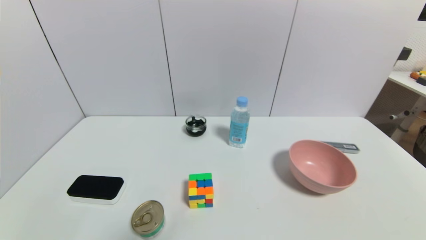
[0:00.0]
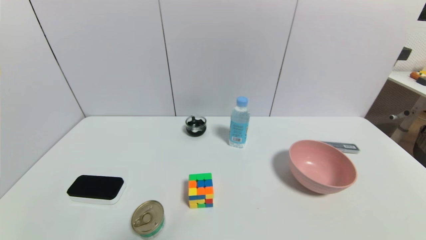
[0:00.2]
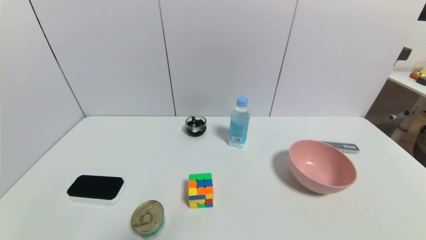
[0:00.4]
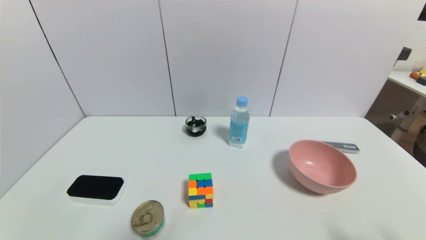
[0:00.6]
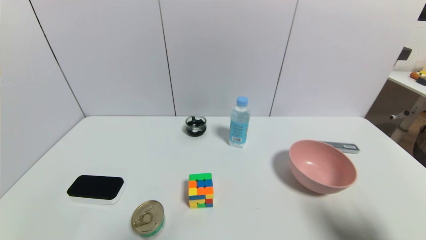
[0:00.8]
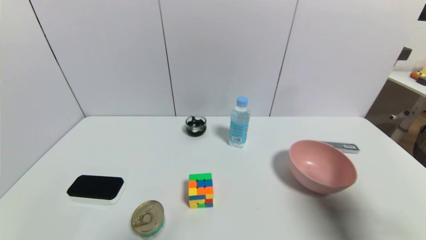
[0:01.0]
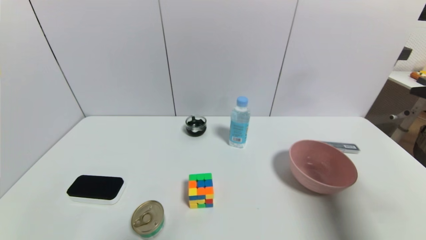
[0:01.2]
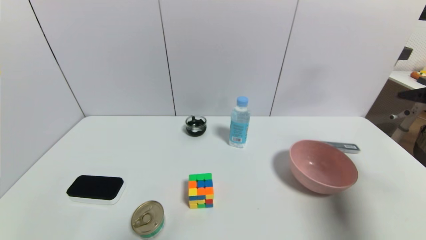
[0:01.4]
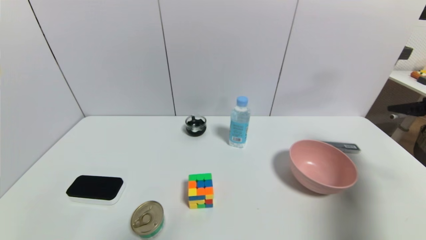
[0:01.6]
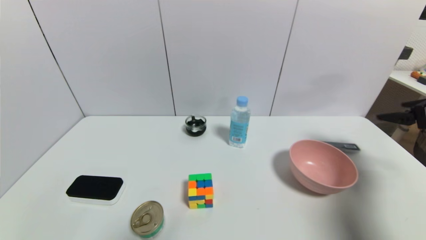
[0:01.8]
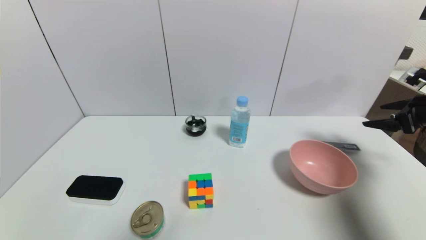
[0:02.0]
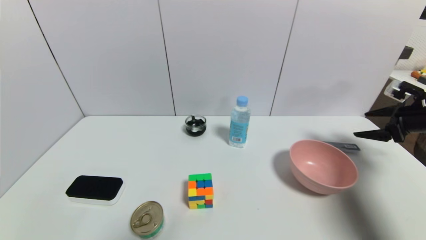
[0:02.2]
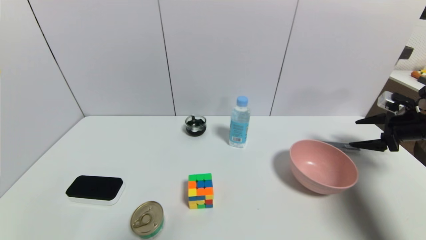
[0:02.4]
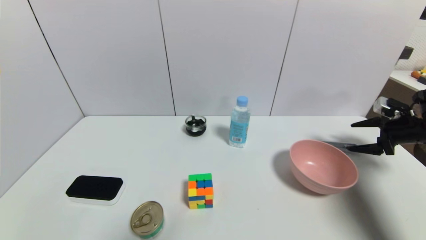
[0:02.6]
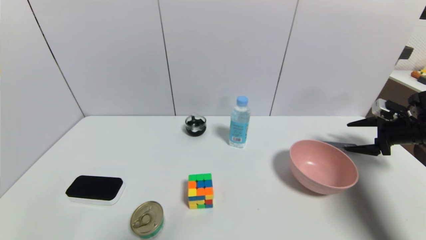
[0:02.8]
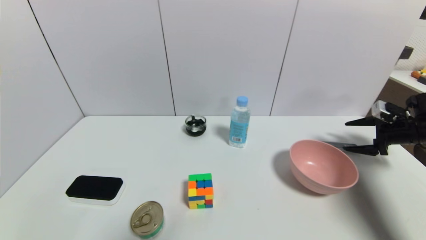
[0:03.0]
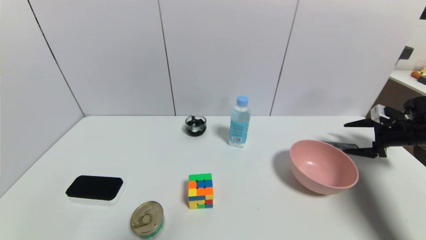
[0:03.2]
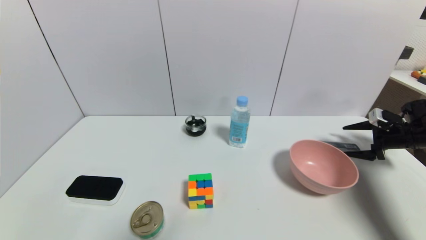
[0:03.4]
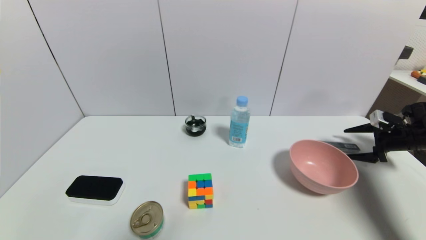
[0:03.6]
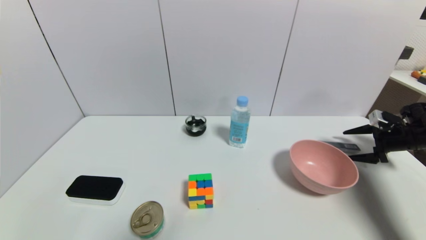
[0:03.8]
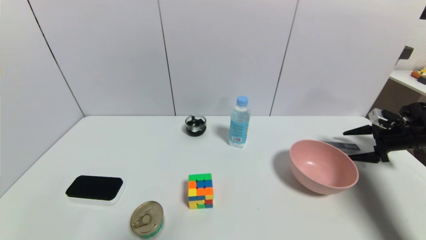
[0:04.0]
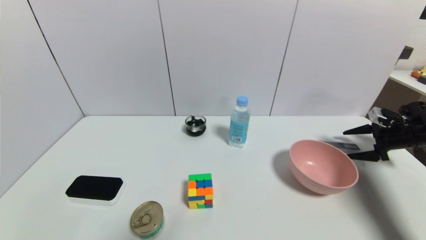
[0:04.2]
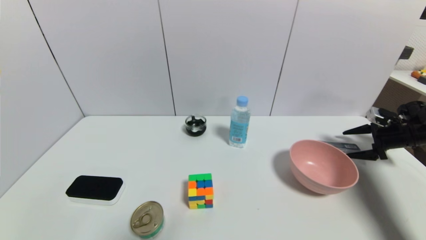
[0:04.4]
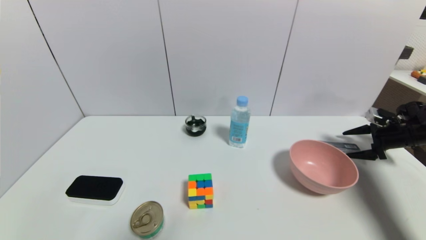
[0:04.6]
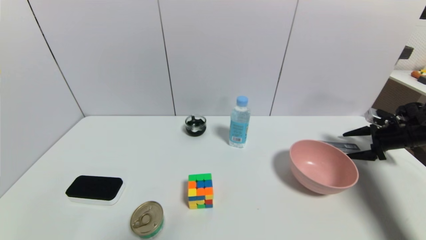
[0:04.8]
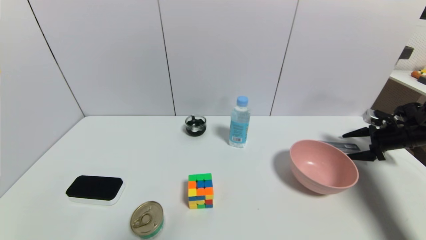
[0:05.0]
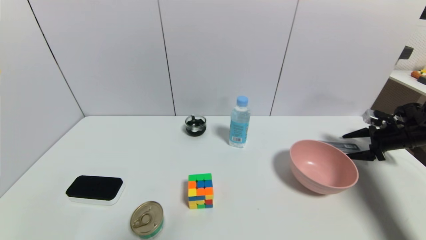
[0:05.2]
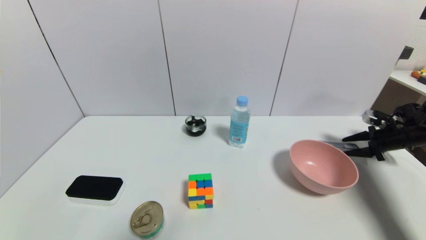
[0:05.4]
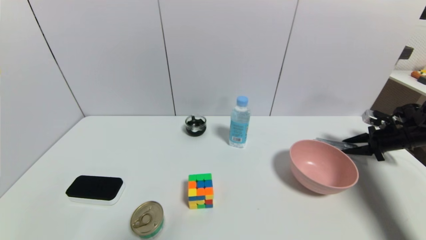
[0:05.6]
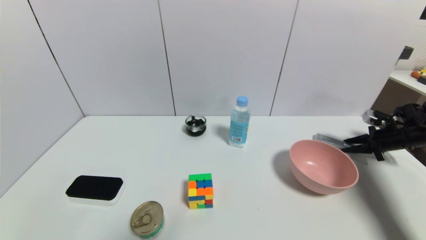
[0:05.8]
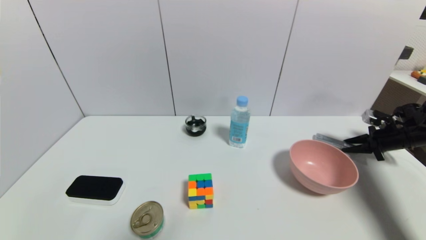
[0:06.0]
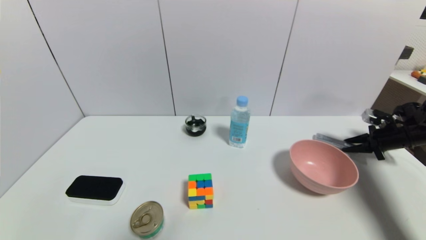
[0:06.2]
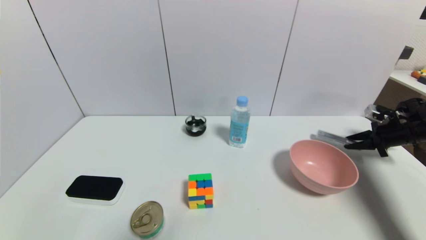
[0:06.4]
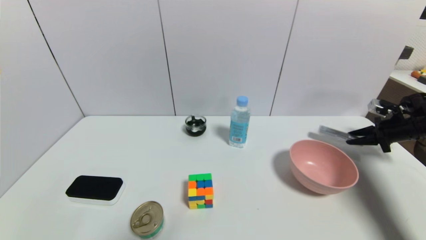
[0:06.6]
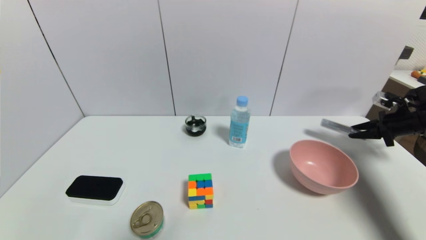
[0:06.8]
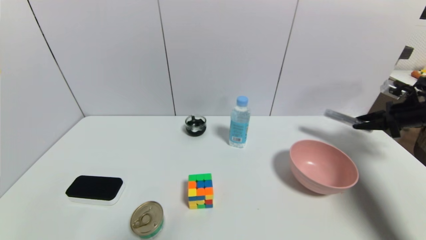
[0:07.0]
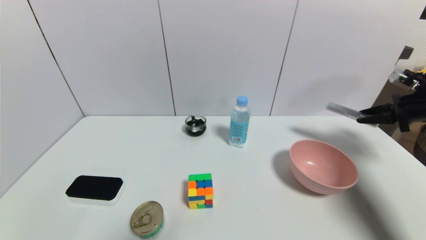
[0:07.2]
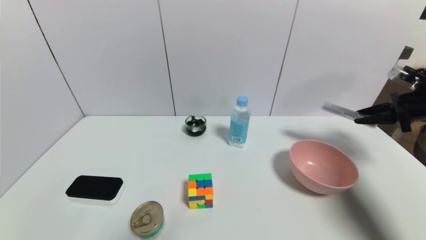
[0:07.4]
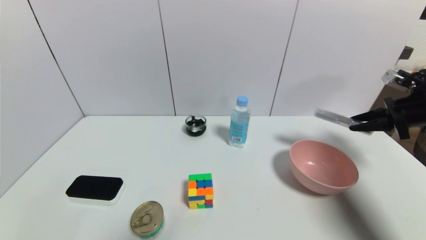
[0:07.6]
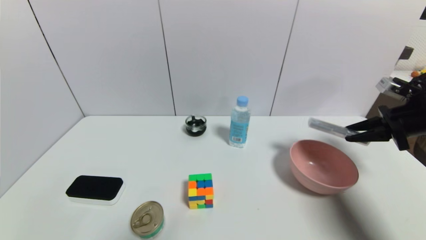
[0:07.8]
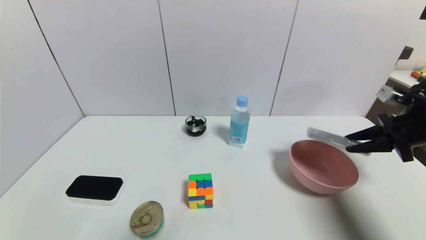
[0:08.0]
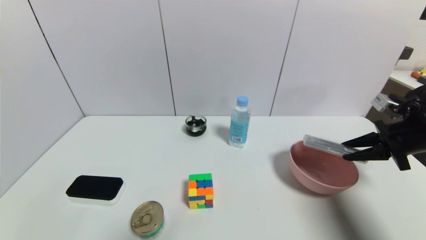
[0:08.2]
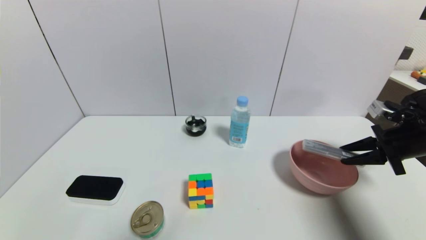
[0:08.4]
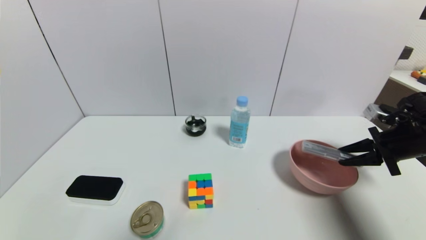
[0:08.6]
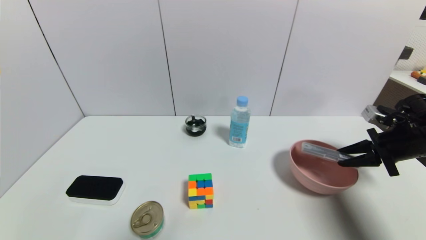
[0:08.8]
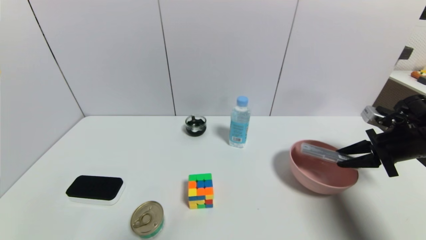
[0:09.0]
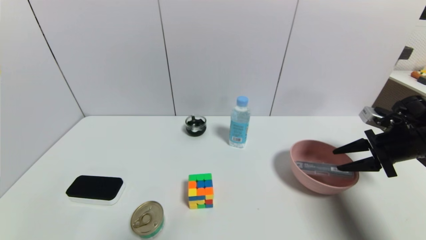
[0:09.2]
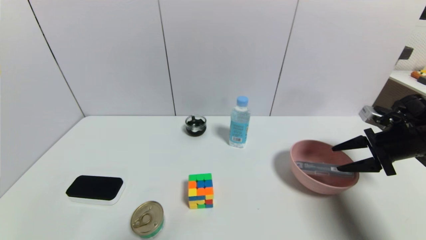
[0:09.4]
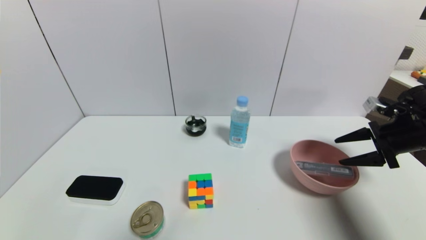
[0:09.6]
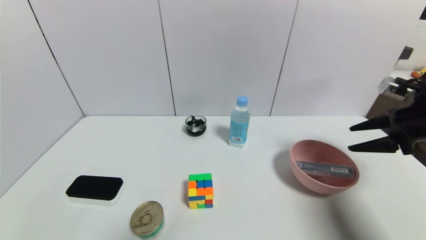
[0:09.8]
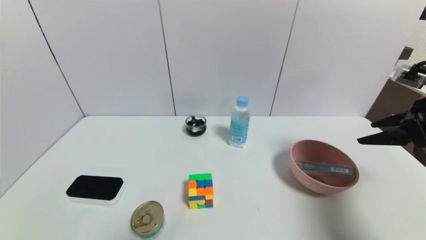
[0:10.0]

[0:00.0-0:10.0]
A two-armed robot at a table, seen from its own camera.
Task of the whole recording: use a gripper to pick the target object and place on the pink bowl.
Step, 0:00.0 to 0:05.8: Grasp the compasses with the right gripper.
Step, 0:06.0 to 0:09.2: Place the compasses on the pink bowl with the right gripper.
0:00.0 to 0:01.4: The right gripper moves forward and upward, about 30 cm.
0:01.4 to 0:02.8: The right gripper is displaced downward, forward and to the right by some 20 cm.
0:02.8 to 0:04.2: The grippers stay close to where they were, moving slightly.
0:04.2 to 0:05.8: The right gripper closes up.
0:05.8 to 0:07.2: The right gripper goes some 10 cm upward.
0:07.2 to 0:08.6: The right gripper heads to the left and backward, covering approximately 10 cm.
0:08.6 to 0:10.0: The right gripper travels upward and backward by approximately 10 cm, and opens its fingers.

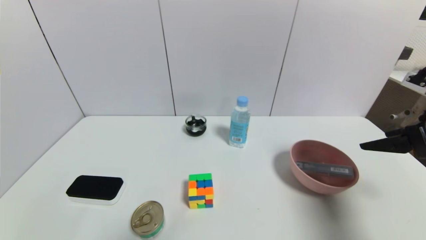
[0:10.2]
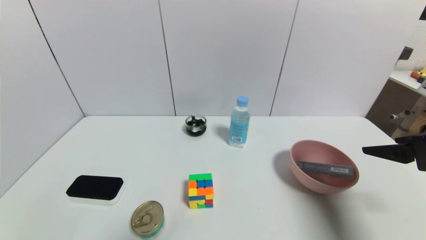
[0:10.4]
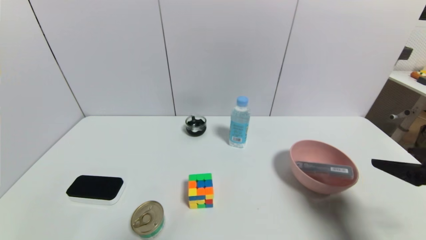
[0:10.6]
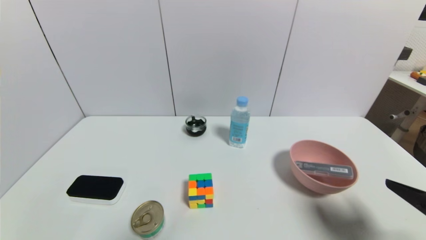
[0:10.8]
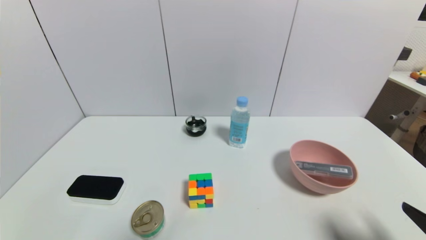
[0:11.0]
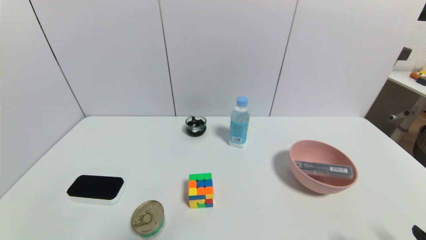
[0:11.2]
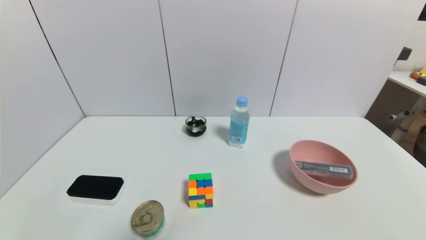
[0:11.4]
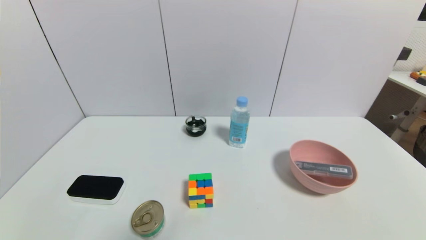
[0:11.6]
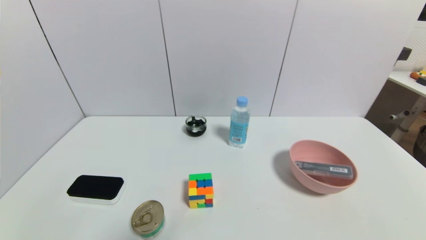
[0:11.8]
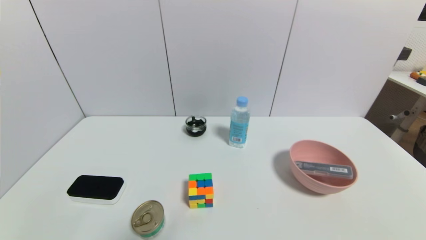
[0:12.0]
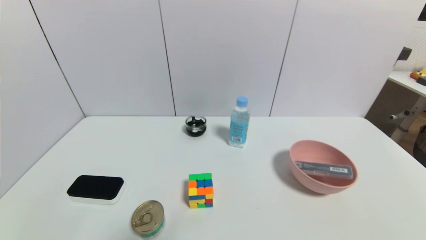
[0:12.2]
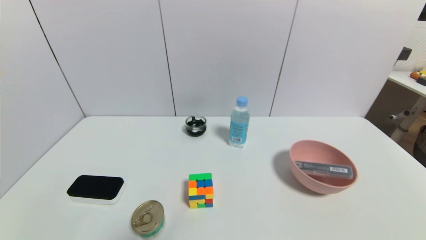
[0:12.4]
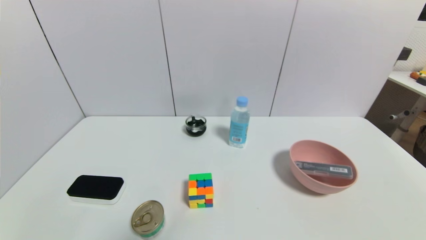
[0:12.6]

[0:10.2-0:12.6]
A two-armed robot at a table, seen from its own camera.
Task of the whole recording: use a gripper to pick the target object and place on the pink bowl.
0:10.2 to 0:11.4: The right gripper moves backward and downward, roughly 25 cm.

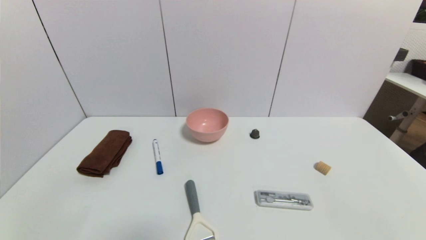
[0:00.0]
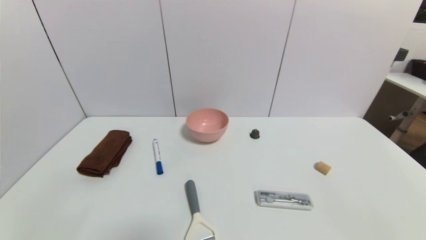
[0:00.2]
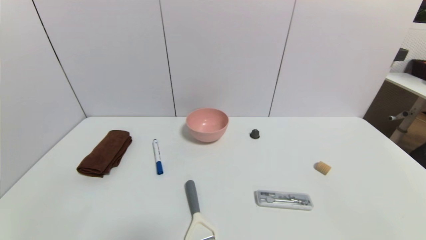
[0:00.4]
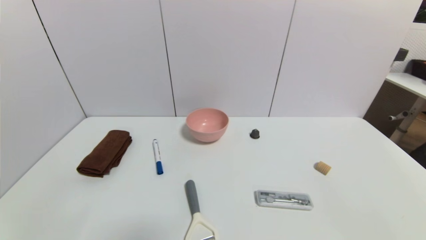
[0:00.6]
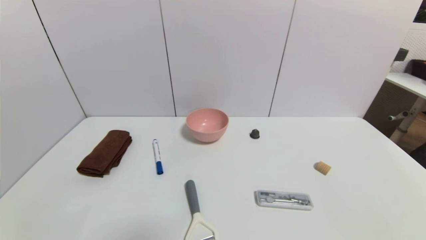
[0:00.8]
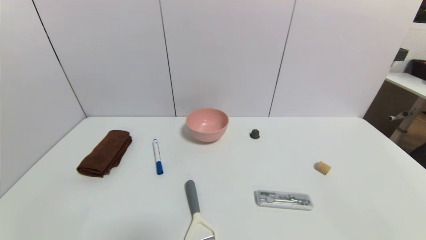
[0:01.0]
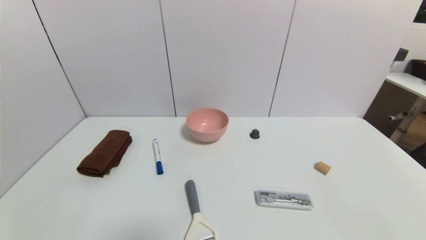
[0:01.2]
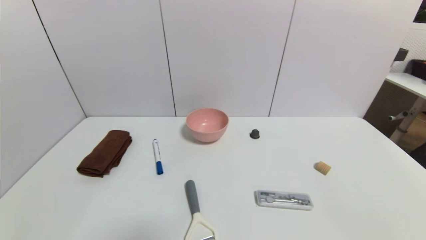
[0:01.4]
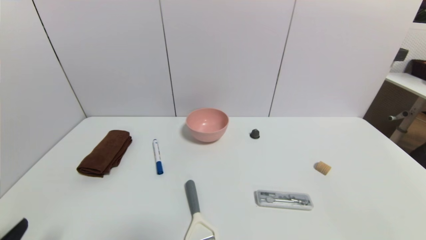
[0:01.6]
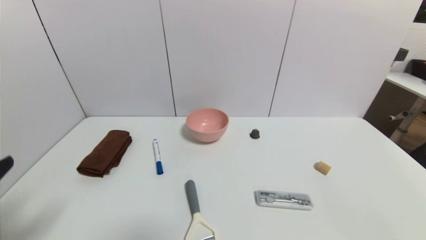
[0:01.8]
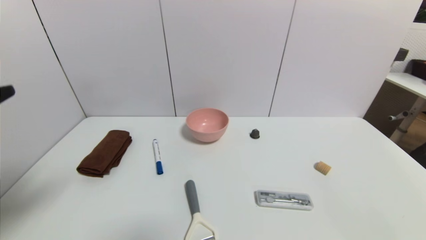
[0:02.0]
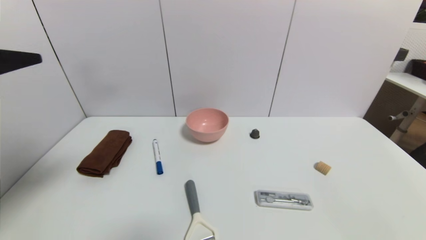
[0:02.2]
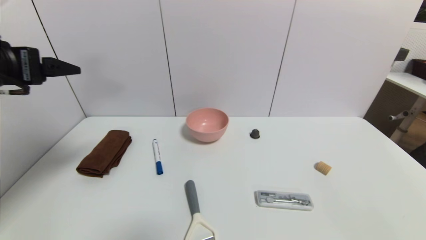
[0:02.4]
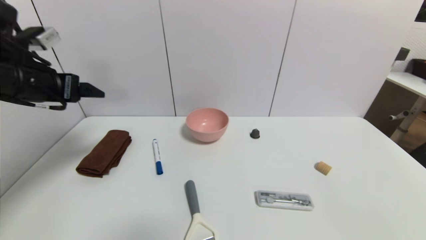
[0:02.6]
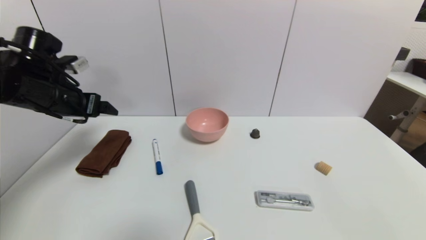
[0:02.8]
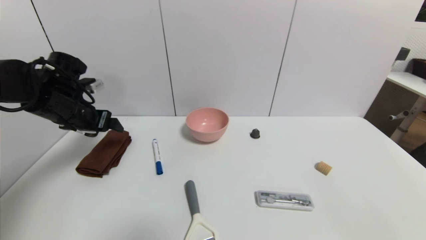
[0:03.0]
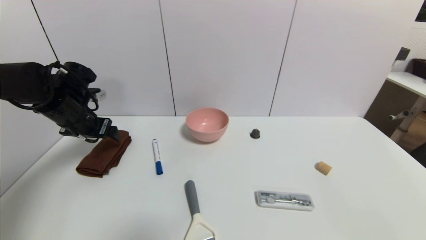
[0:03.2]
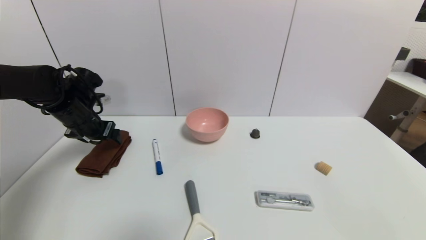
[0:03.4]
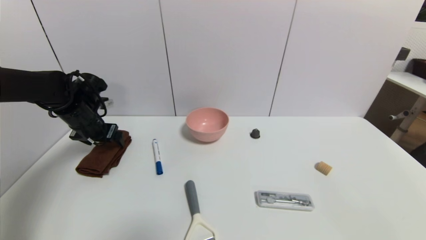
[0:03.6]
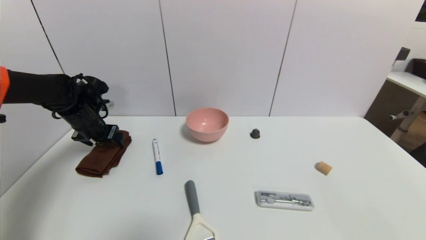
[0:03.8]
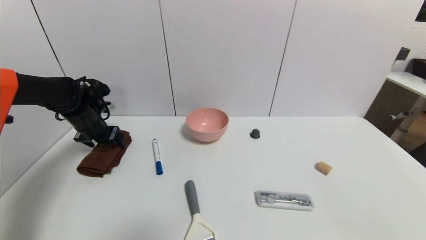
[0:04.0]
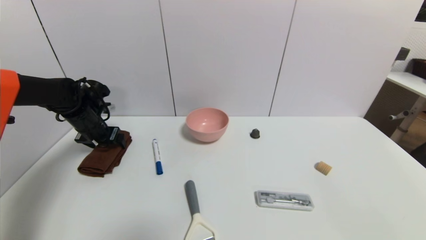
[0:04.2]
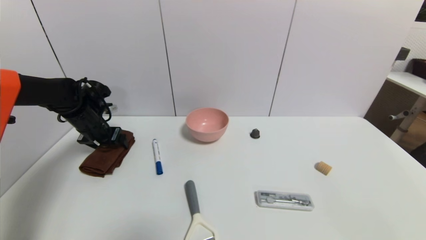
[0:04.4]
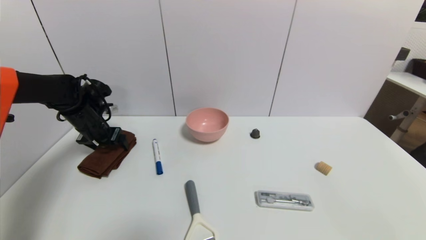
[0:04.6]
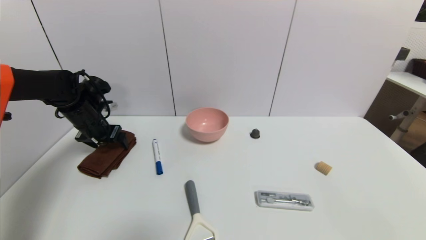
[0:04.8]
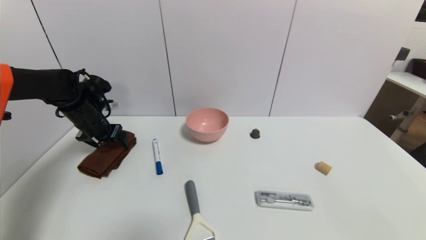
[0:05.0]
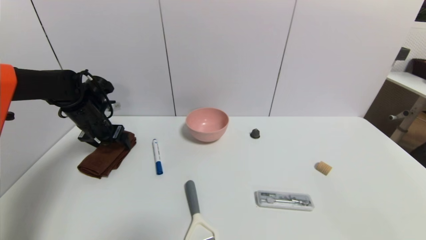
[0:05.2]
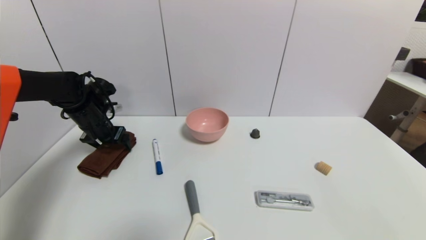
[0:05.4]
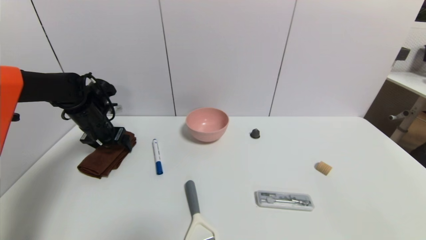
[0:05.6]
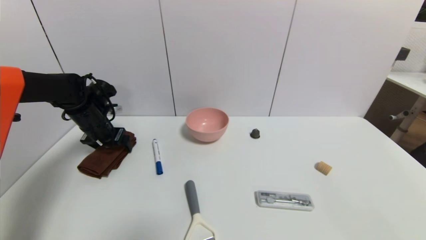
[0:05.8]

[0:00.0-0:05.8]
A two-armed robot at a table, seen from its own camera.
Task of the whole recording: use a gripper to pick the target object and place on the pink bowl.
0:01.4 to 0:02.8: The left gripper is displaced forward and upward by approximately 35 cm.
0:02.8 to 0:04.4: The left gripper is displaced downward and forward by roughly 15 cm.
0:04.4 to 0:05.8: The grippers stay close to where they were, moving slightly.
